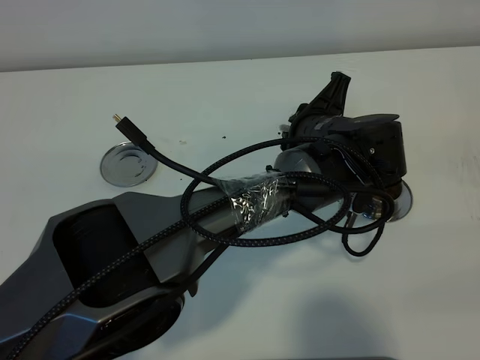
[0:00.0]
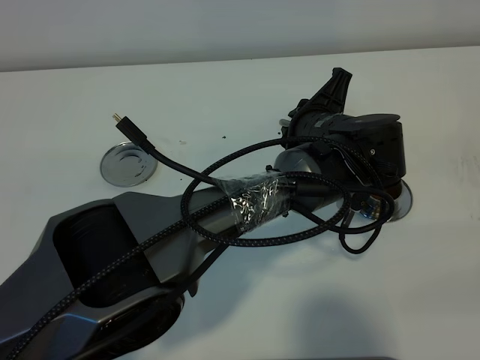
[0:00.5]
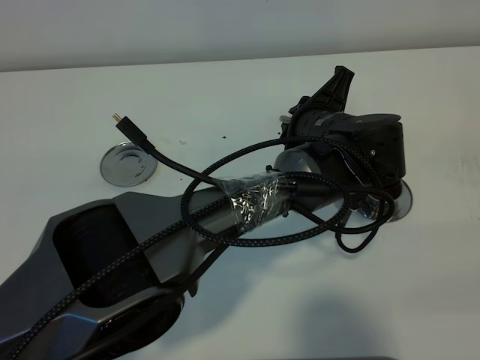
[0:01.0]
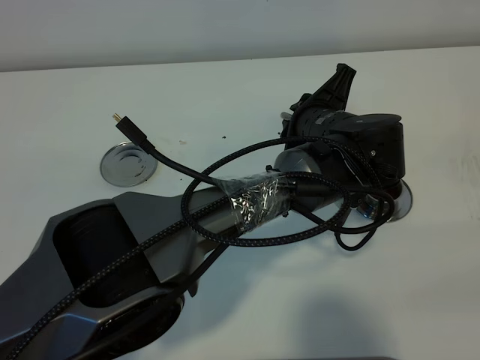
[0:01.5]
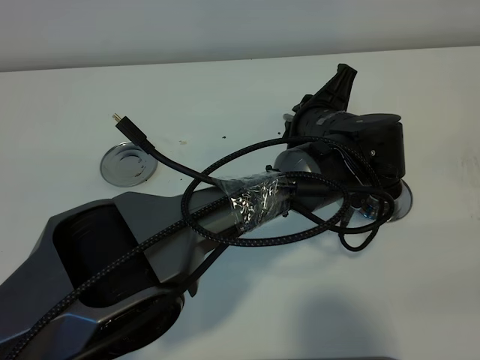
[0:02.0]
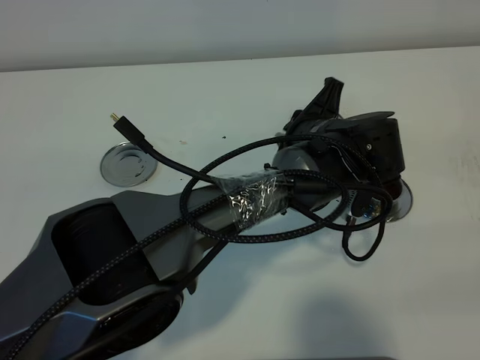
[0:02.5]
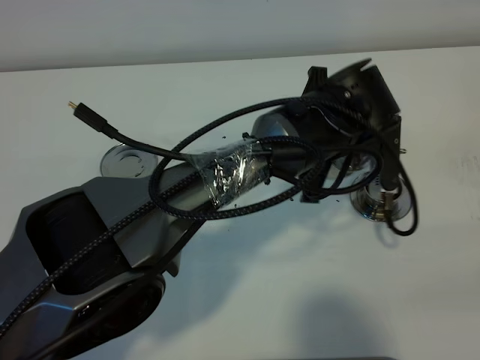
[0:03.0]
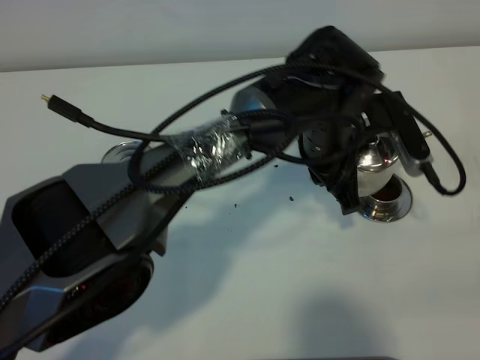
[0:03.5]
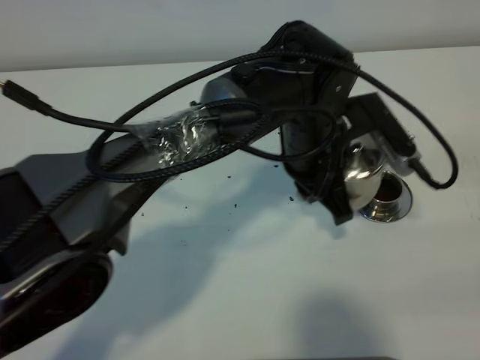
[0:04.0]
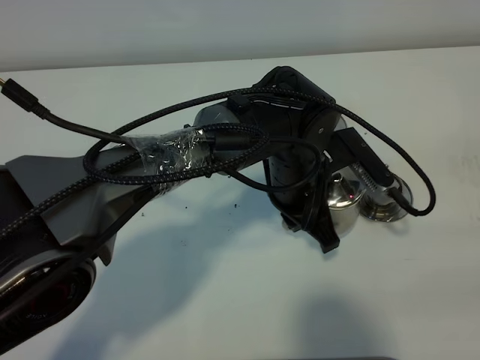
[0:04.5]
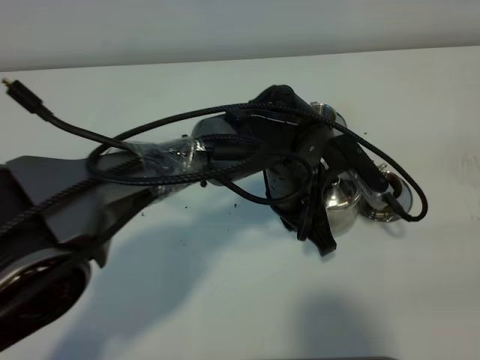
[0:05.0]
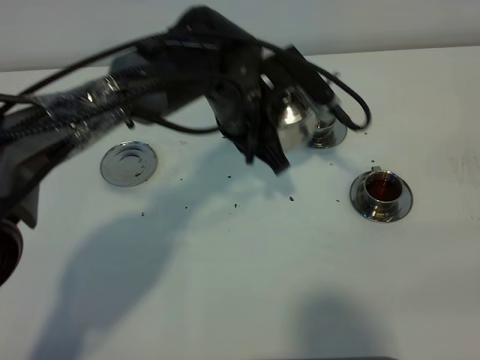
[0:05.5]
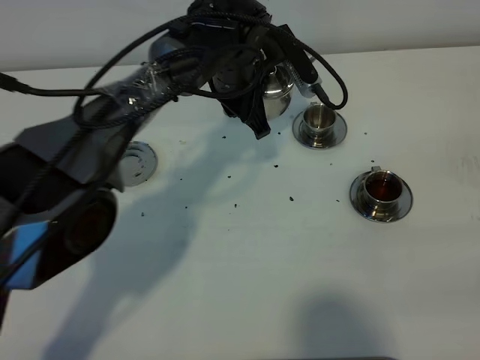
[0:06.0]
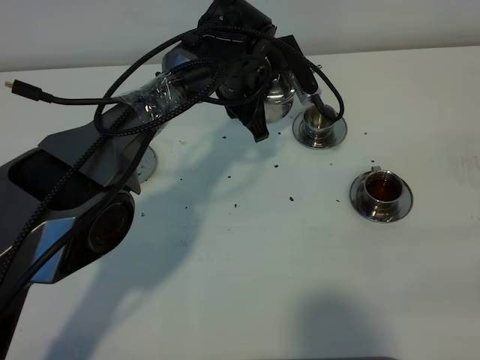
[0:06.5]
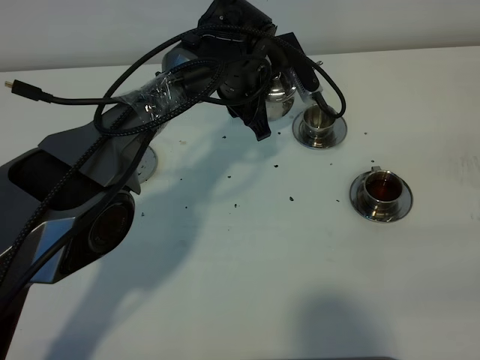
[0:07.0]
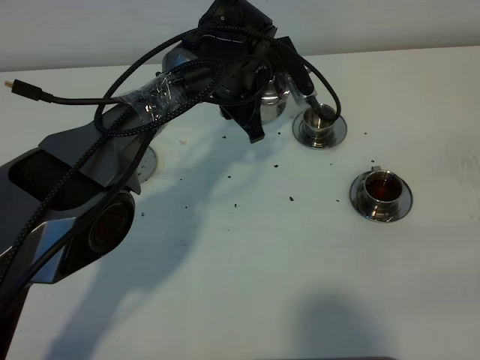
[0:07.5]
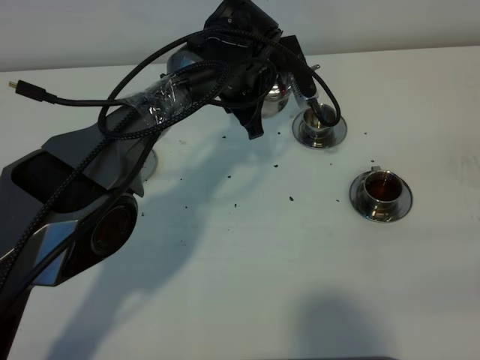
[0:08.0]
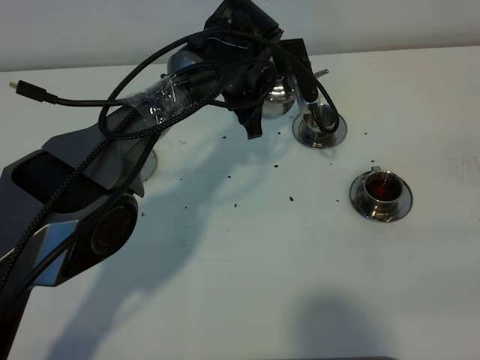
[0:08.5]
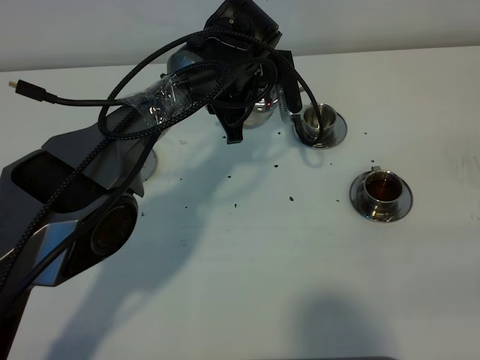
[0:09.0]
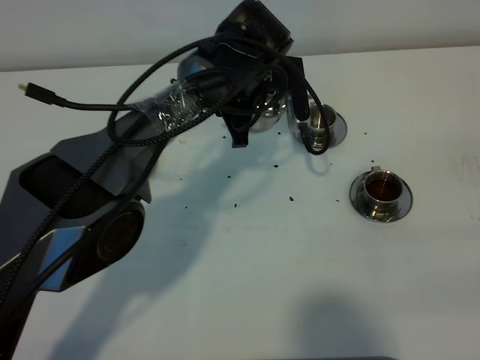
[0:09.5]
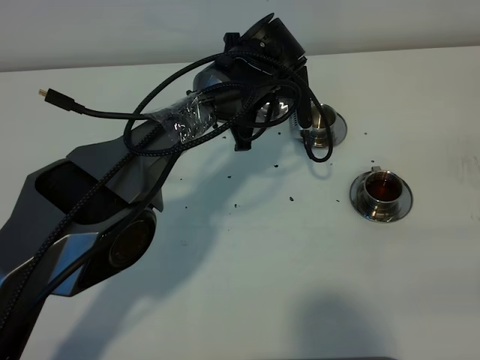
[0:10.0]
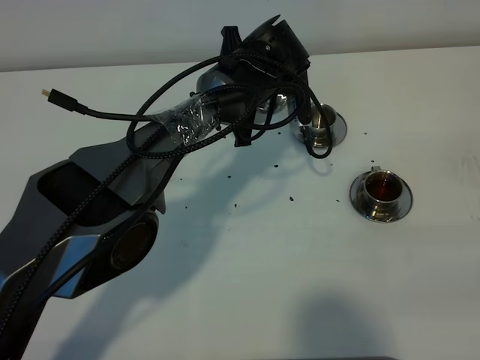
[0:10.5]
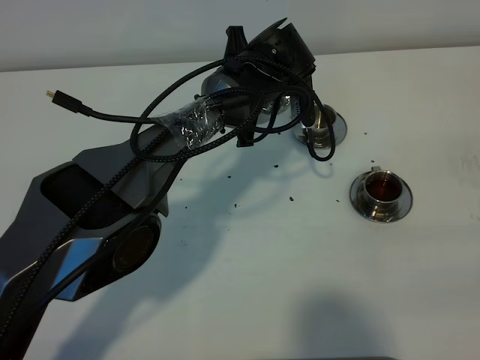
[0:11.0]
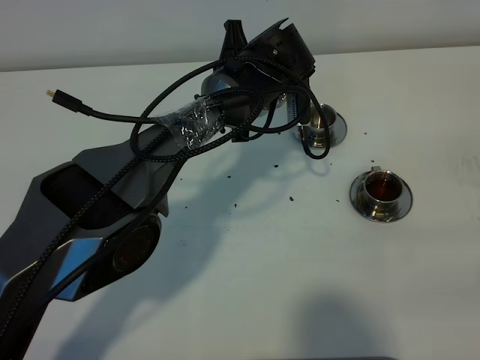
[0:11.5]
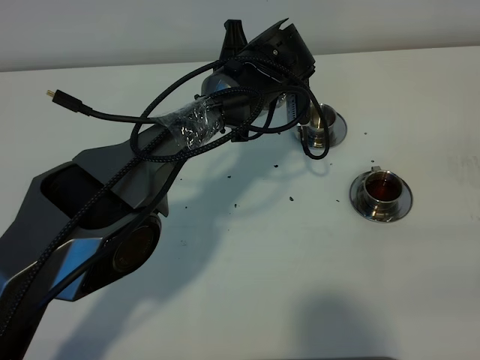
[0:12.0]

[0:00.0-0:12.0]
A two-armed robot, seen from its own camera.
Task of the whole recording: grasp the stainless steel teapot and pour the tea into the two stainless steel teacups one by one, put the stainless steel teapot back in its original place.
0:00.0 to 0:02.0: The grippers move only a little.
0:02.0 to 0:04.0: The left gripper changes place by some 5 cm.
0:04.0 to 0:06.0: The left gripper travels forward and to the left by some 15 cm.
0:06.0 to 0:08.0: The grippers move only a little.
0:08.0 to 0:10.0: There are only small adjustments of the grippers.
0:10.0 to 0:12.0: The grippers make only small movements.

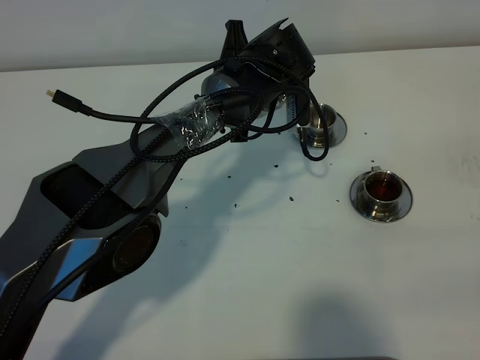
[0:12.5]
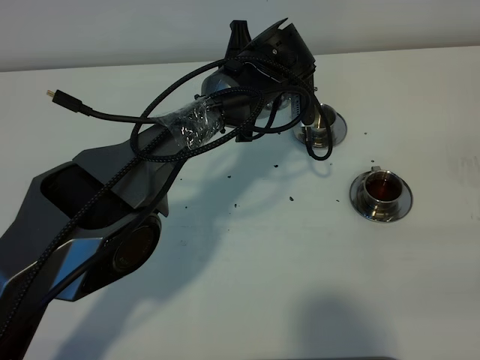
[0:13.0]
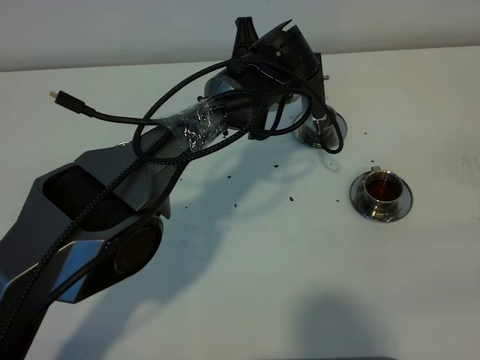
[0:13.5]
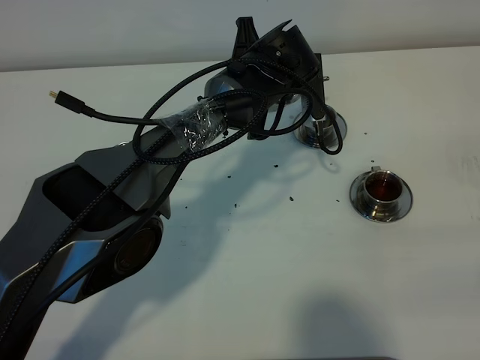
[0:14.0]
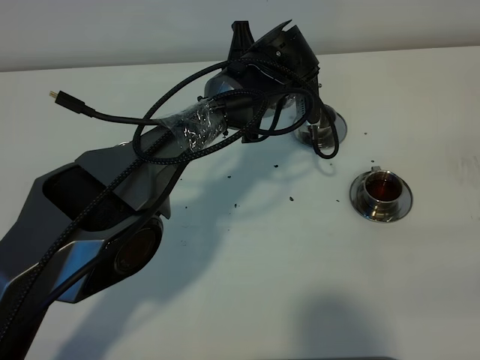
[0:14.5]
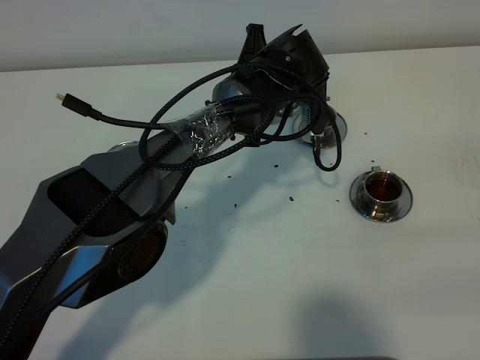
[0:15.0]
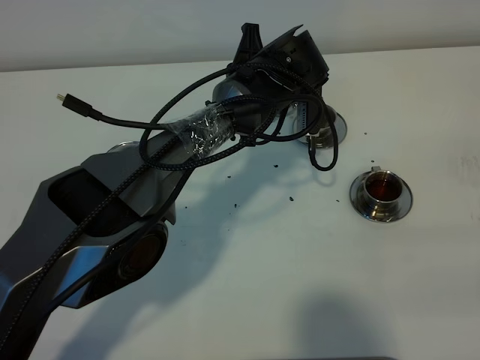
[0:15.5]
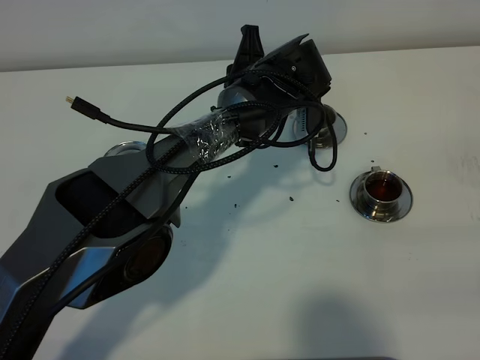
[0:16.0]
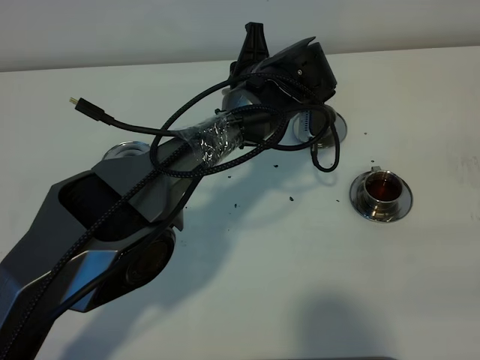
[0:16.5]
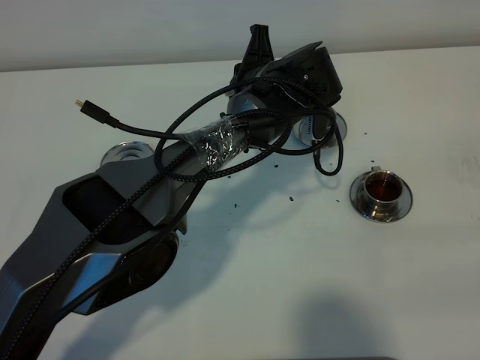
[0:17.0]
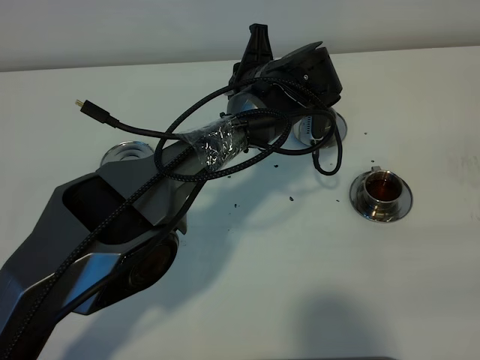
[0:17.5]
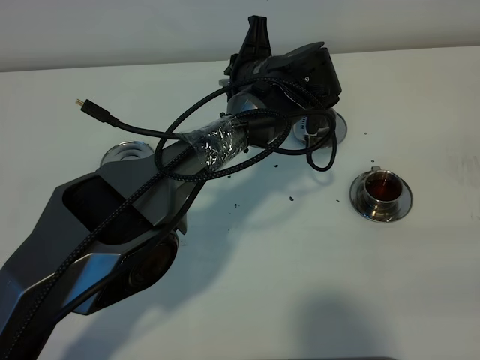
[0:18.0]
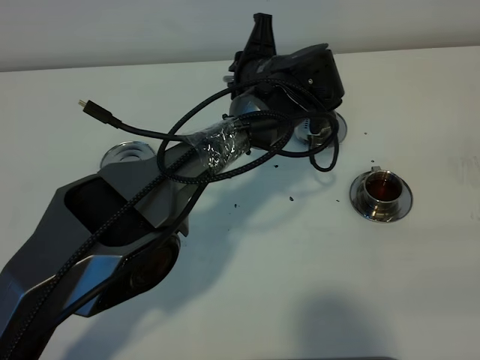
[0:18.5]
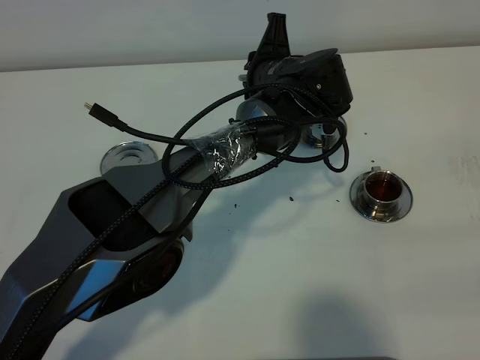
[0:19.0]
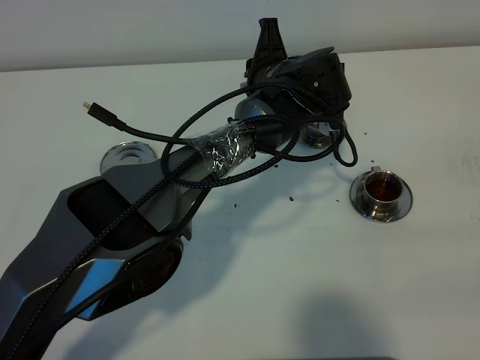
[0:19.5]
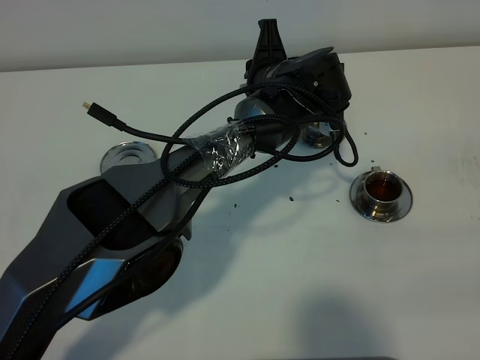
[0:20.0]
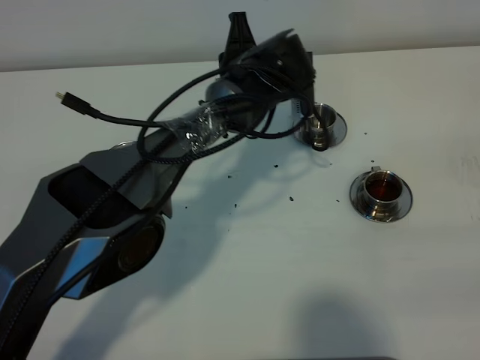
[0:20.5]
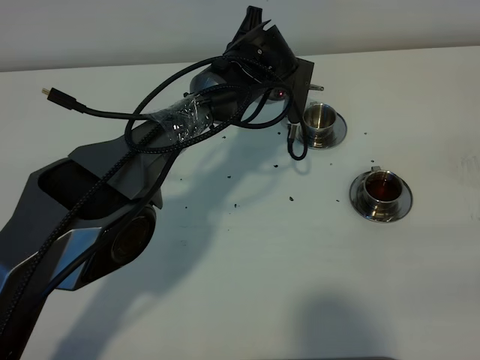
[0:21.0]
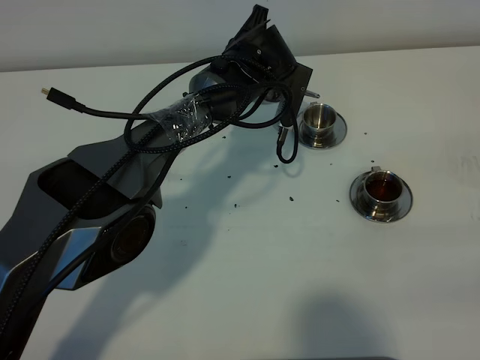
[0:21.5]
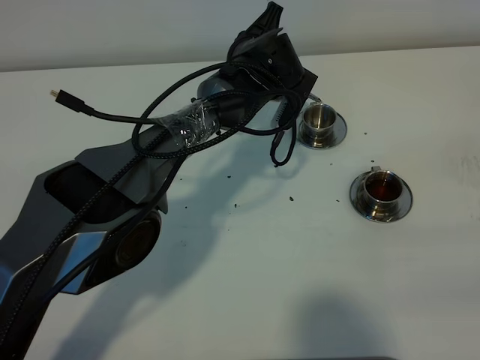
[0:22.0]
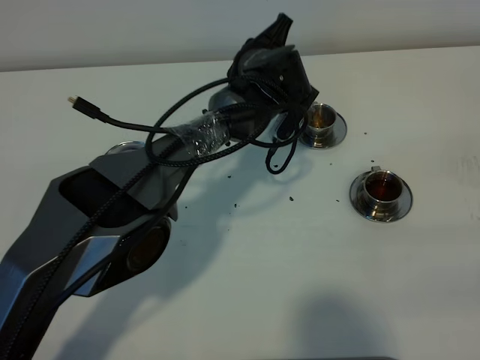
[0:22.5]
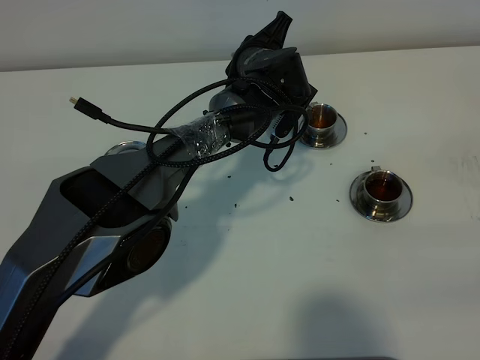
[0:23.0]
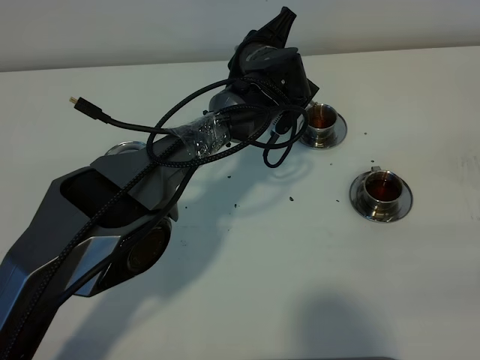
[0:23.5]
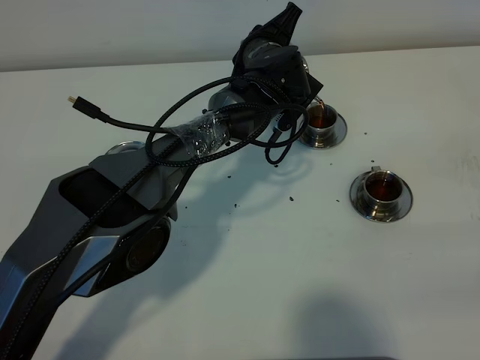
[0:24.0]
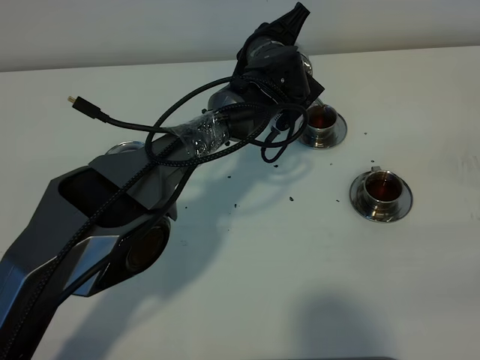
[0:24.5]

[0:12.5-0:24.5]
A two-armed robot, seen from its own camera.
Task of the whole recording: grasp the stainless steel teapot and pour the tea into the two stainless steel teacups one by one, put the stainless steel teapot back in its original place.
0:12.5 to 0:20.5: The grippers move only a little.
0:22.5 to 0:24.5: The grippers move only a little.

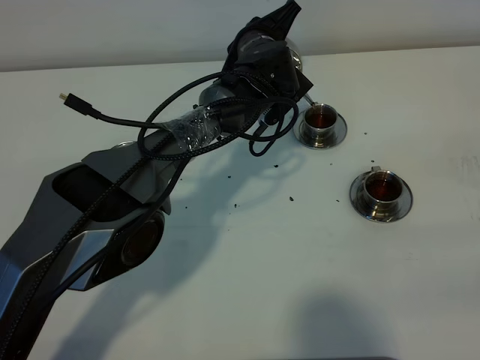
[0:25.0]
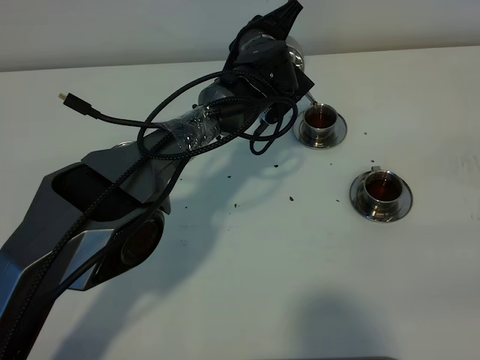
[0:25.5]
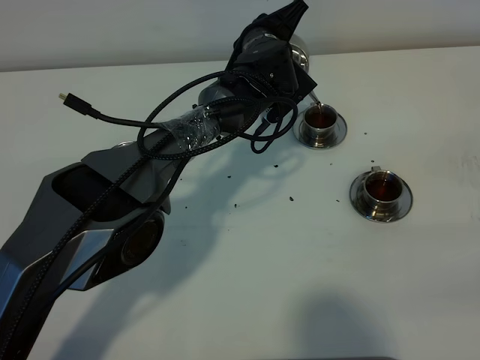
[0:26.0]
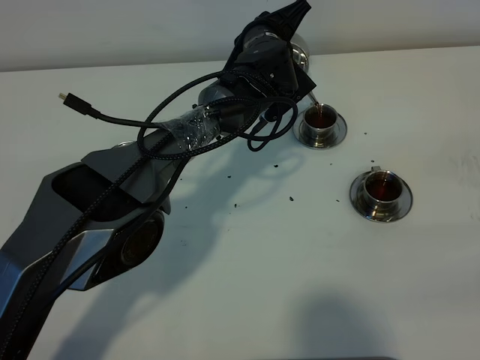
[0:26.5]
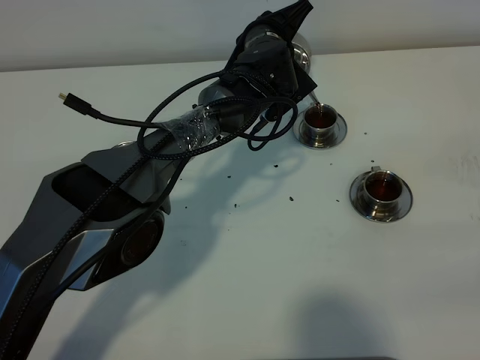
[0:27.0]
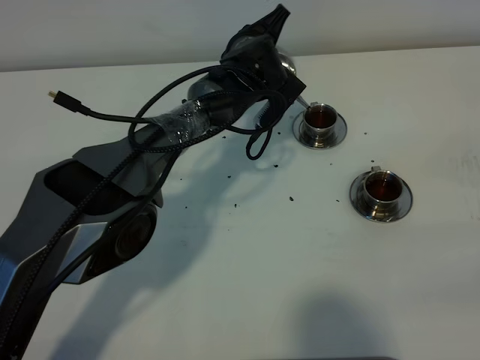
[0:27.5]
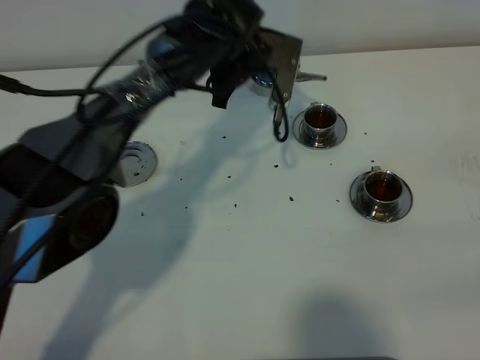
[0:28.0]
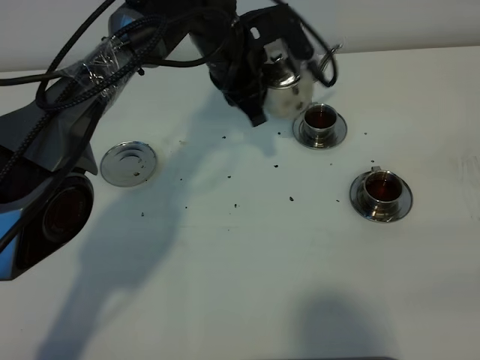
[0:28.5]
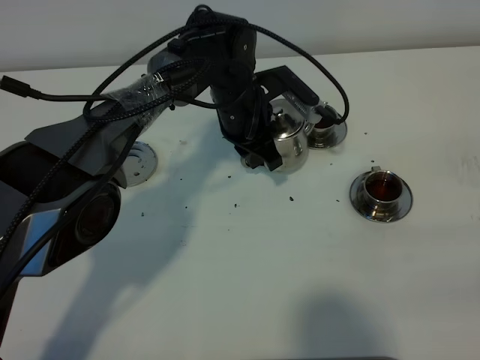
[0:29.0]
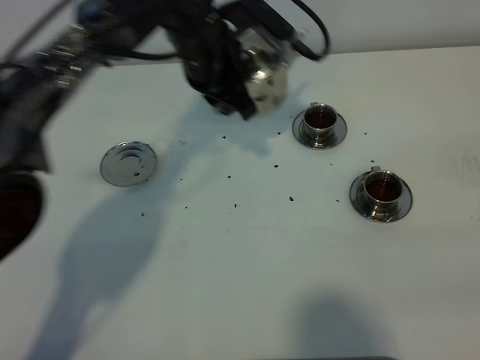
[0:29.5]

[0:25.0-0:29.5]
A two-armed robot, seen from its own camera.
Task of the whole recording: grasp the stainless steel teapot and pour the tea into the two stainless steel teacups one by one, put the stainless steel teapot back in its original place.
Step, 0:25.0 to 0:28.0: Pour tea into the teacup with the left gripper.
0:25.0 to 0:27.0: The grippers stay close to where they were, moving slightly.
0:27.0 to 0:29.5: The left gripper goes up and down, roughly 10 cm each way, reversing 2 times.
